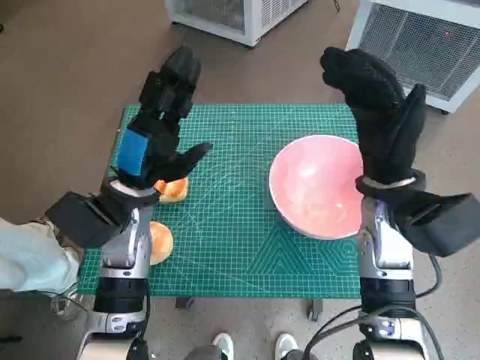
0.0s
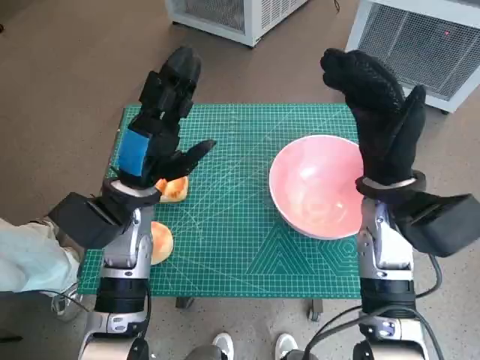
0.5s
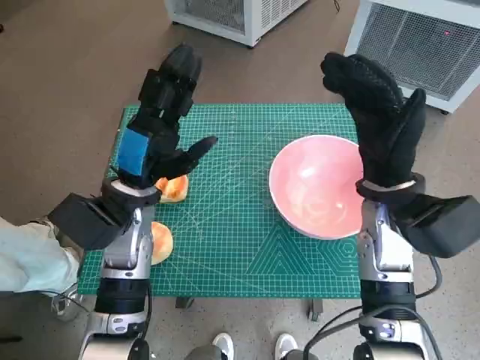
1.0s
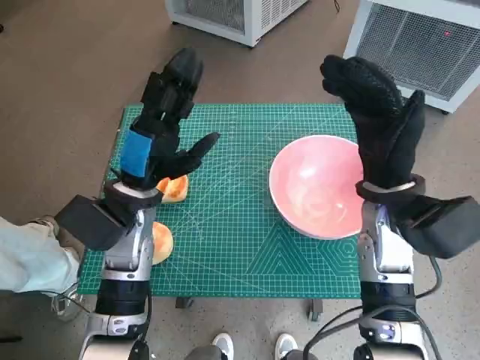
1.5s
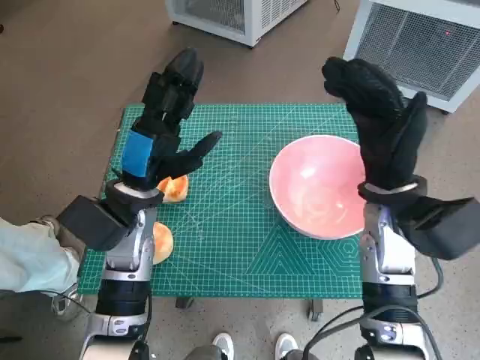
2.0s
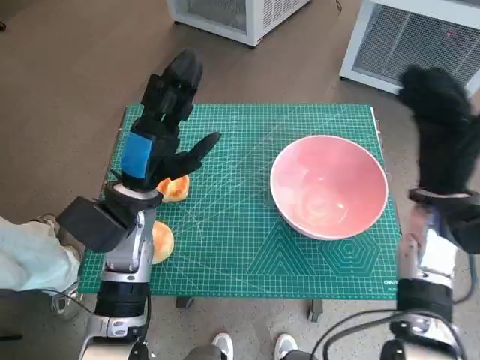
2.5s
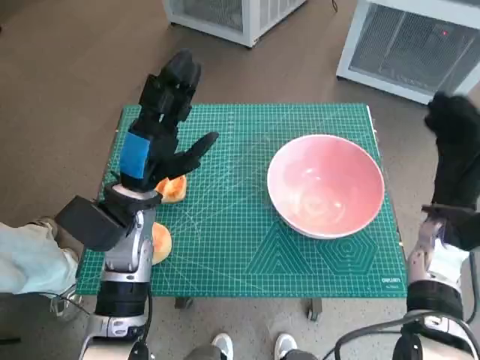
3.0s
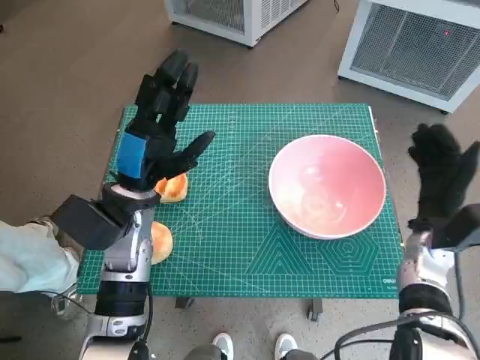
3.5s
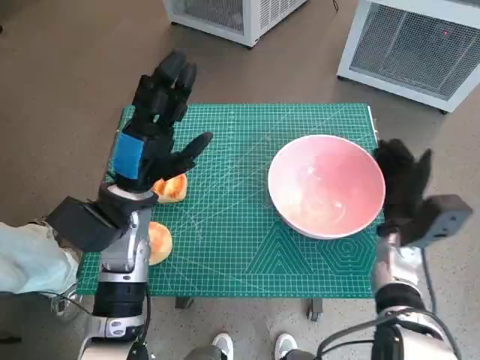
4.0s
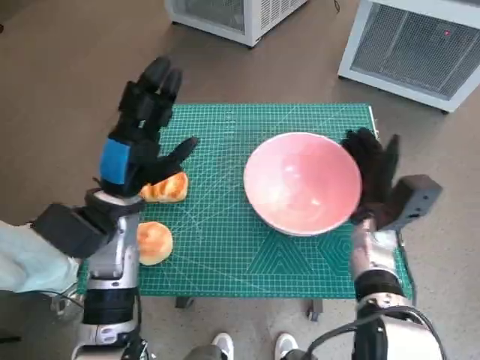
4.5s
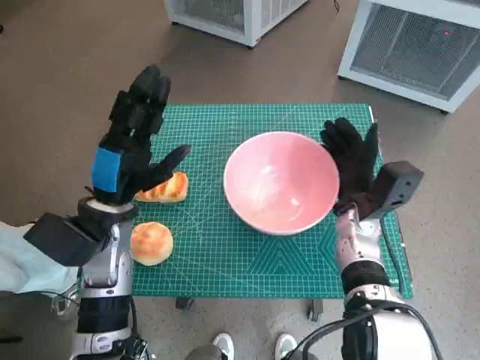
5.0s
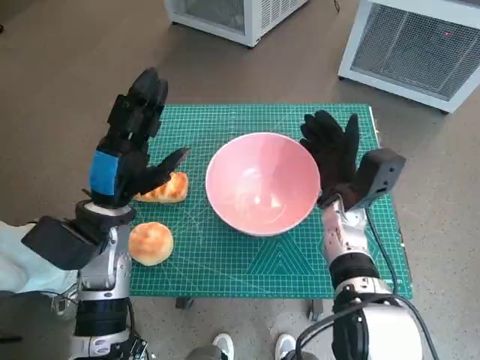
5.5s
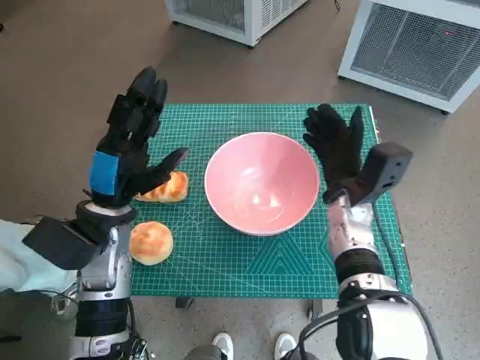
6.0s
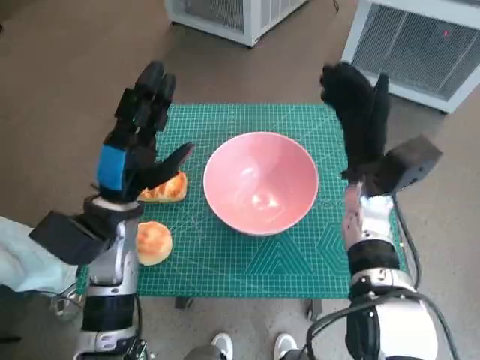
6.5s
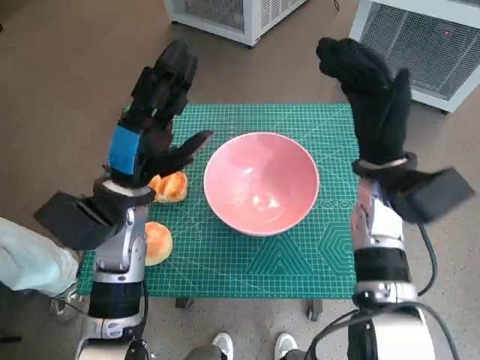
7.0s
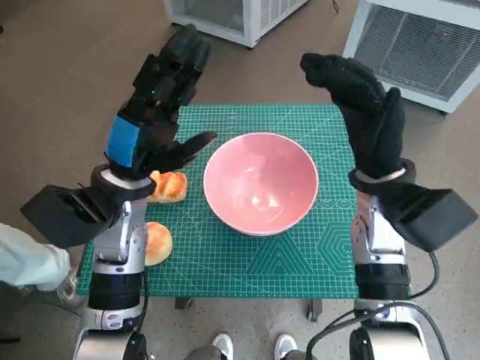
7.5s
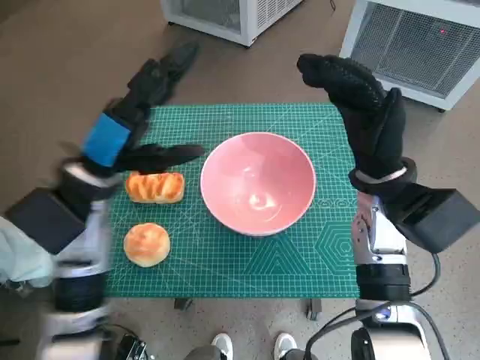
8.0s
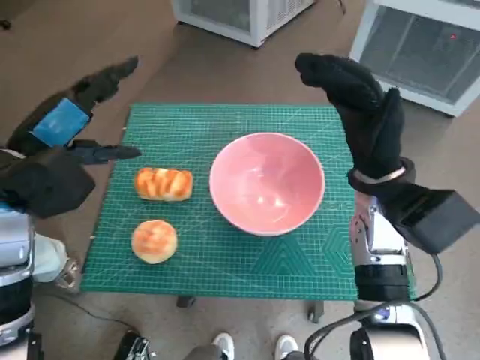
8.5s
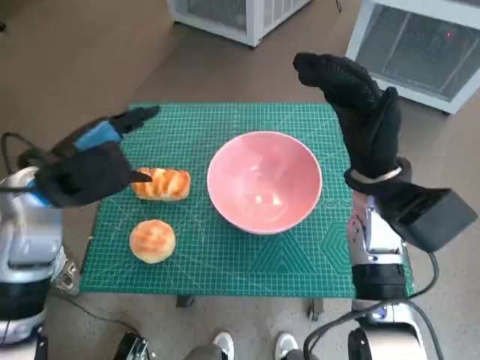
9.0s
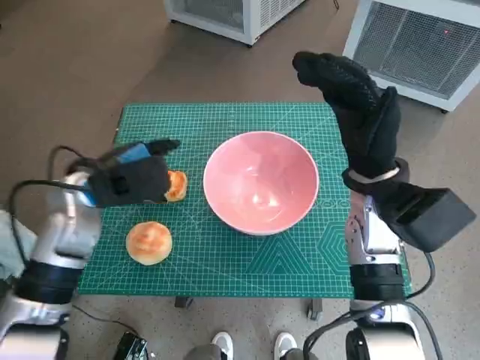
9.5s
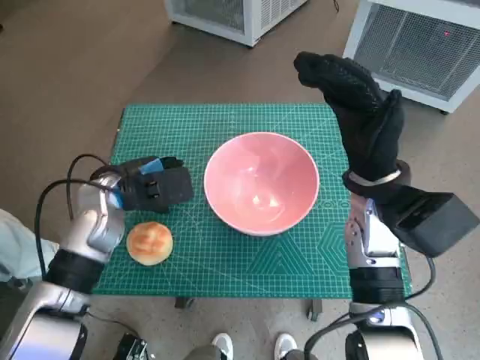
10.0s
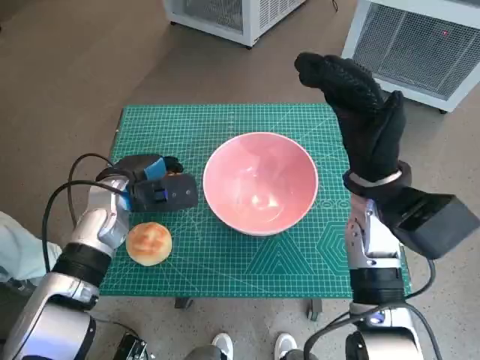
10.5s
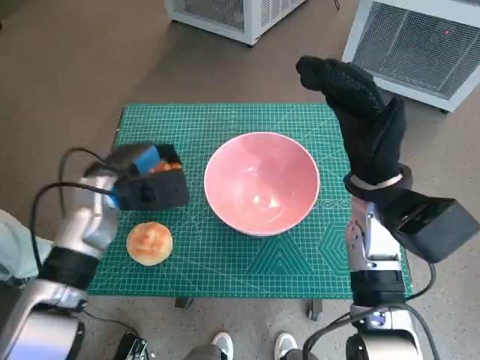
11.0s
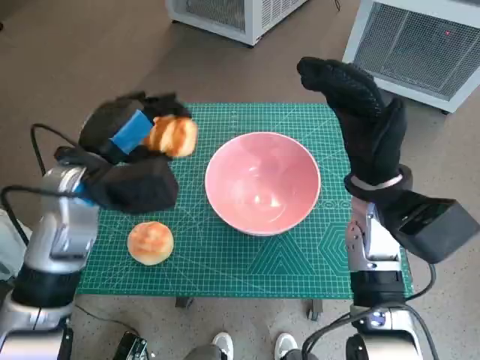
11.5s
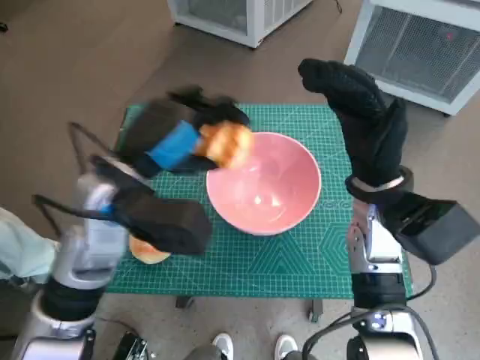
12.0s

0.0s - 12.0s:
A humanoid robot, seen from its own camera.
Task of the whole recording: Push the bowl into the center of the table and put the bread into the bowl.
Step, 0.0s - 5.5s: Move the pink bowl to the center of table with right hand.
Step, 6.0s - 10.5s: Grasp the long bread with left hand.
2.0s - 4.0s: The right hand heads downward and to the right, covering some 15 cm.
4.0s - 6.0s: The right hand travels to the left by some 10 cm.
6.0s - 8.0s: The right hand moves upward, about 10 cm, while the left hand heads upward, covering roughly 5 cm.
8.0s - 10.0s: The left hand shifts roughly 5 cm downward.
10.0s - 12.0s: The left hand shifts roughly 10 cm upward and to the right.

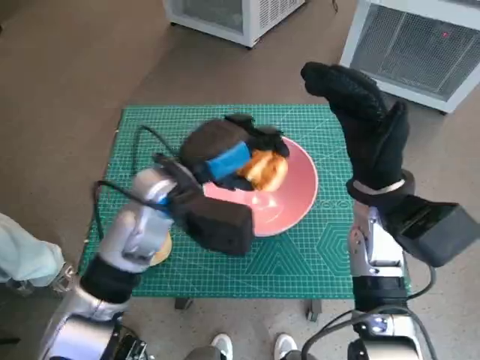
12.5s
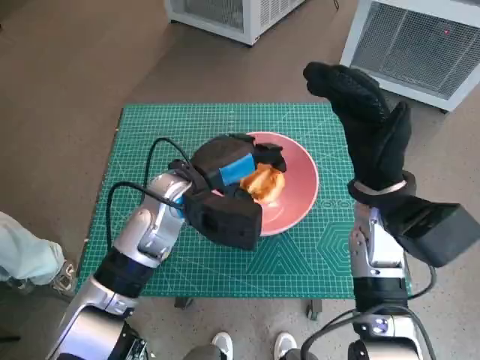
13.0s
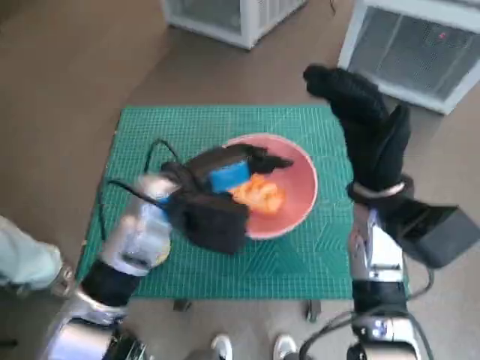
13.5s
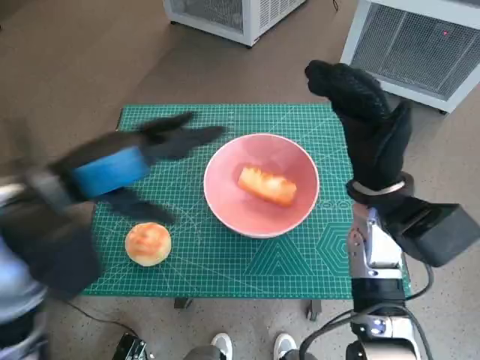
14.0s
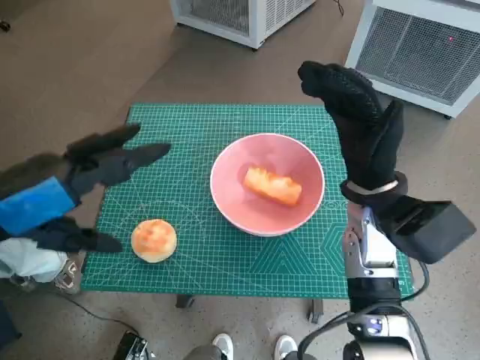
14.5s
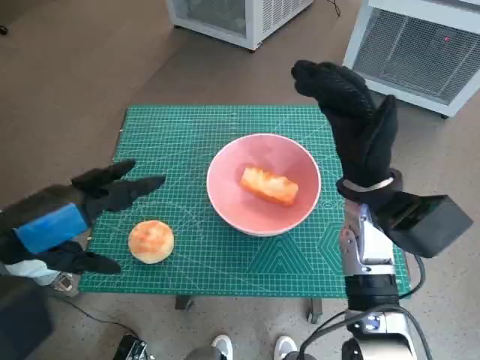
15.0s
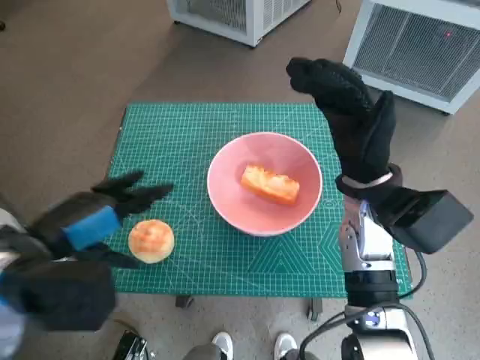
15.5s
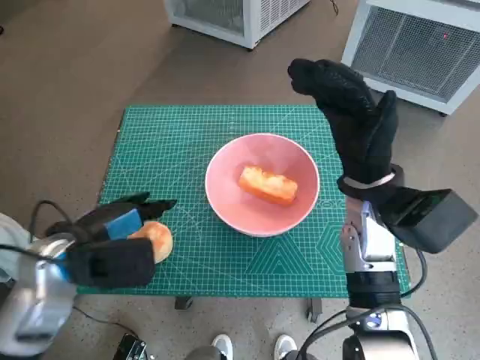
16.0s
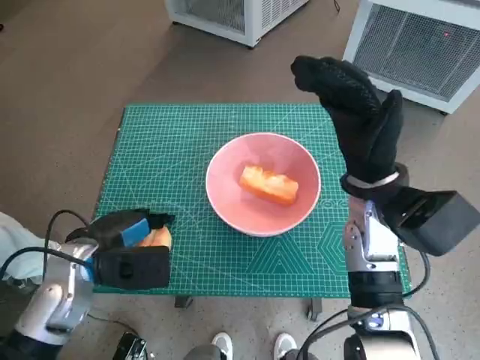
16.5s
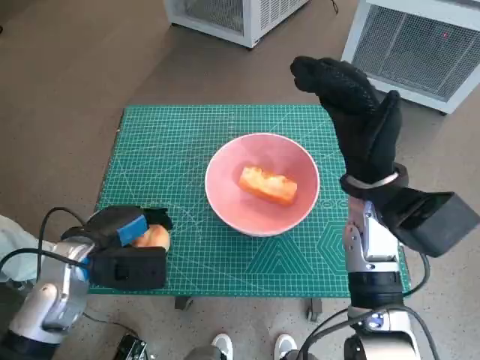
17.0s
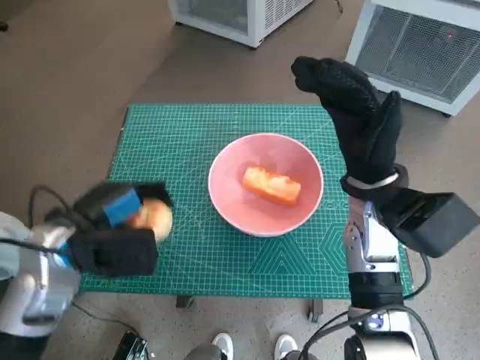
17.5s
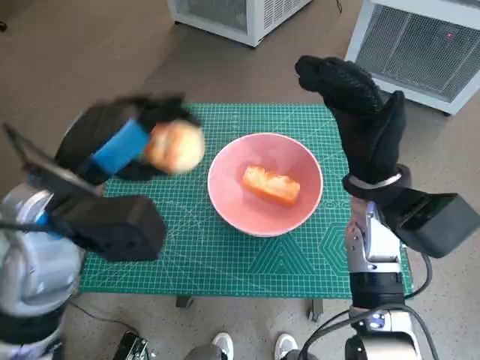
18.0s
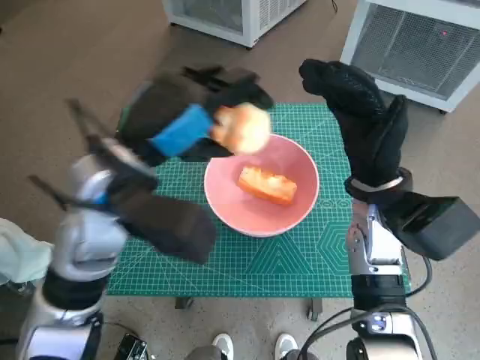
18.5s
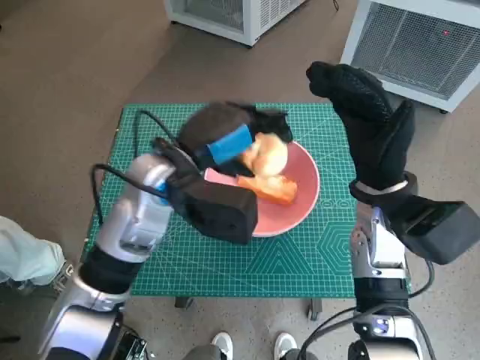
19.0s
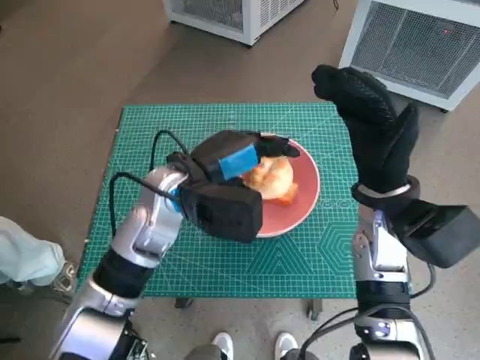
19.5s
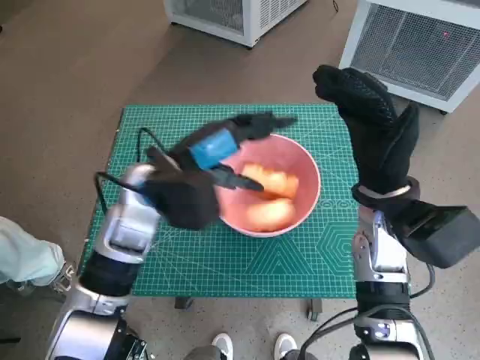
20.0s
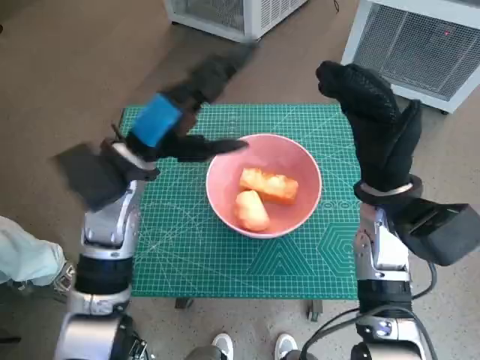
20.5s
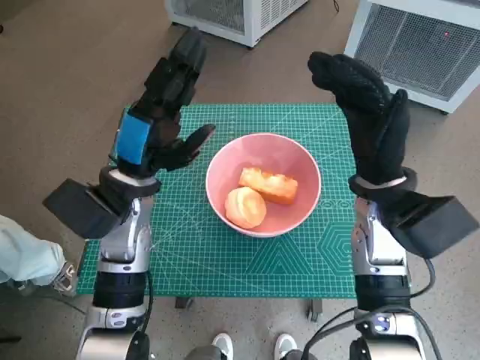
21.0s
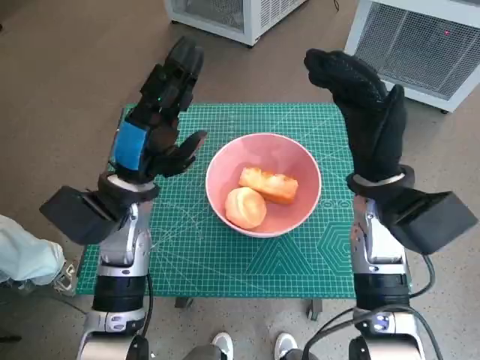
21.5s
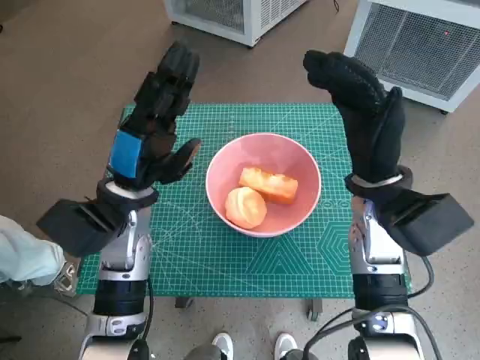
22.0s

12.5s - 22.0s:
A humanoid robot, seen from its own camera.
Task of the whole recording: Push the bowl into the center of the table and put the bread into the bowl.
Step, 13.5s - 16.5s: Grasp the round bread with left hand.
Step, 17.0s - 19.5s: Place the round bread in pink bowl with left hand.
12.5s - 14.5s: The left hand is displaced to the left, backward and upward by some 20 cm.
14.5s - 16.5s: The left hand travels downward by roughly 15 cm.
16.5s - 18.0s: The left hand goes about 15 cm upward.
18.0s - 20.0s: The left hand is displaced to the right, forward and downward by about 10 cm.
20.0s - 22.0s: The left hand moves some 5 cm.

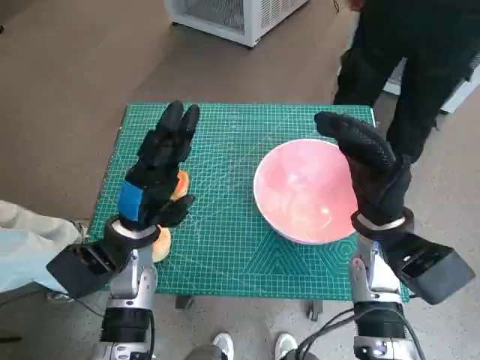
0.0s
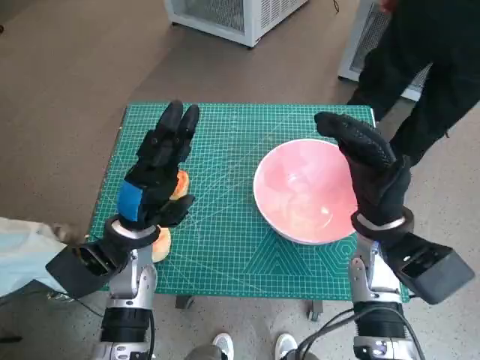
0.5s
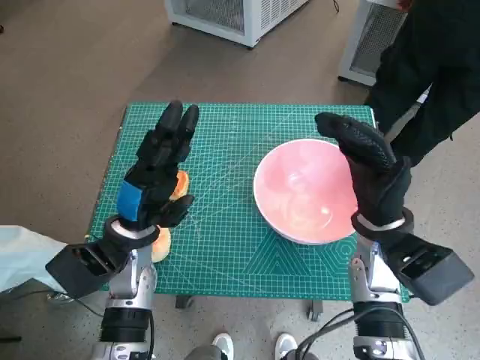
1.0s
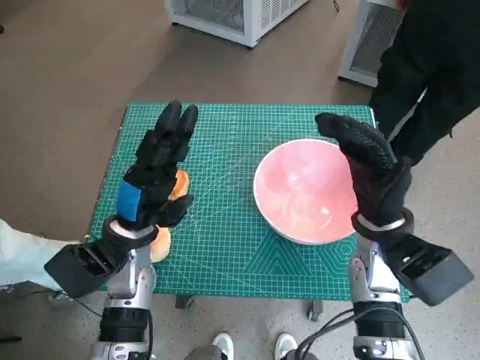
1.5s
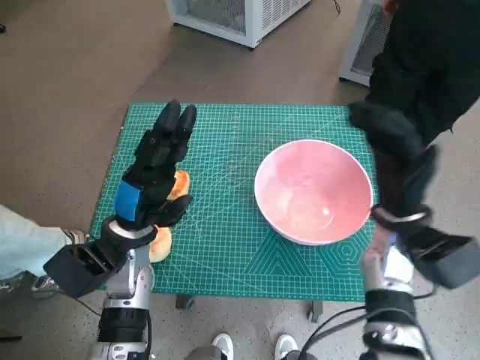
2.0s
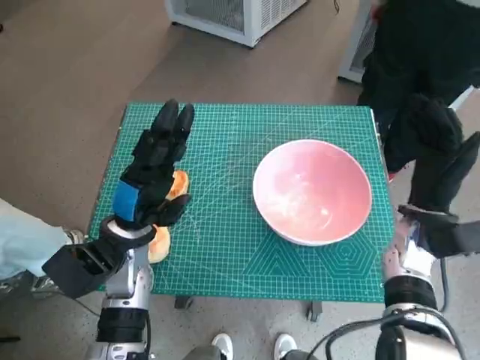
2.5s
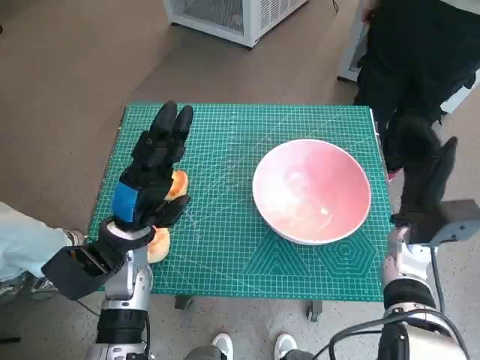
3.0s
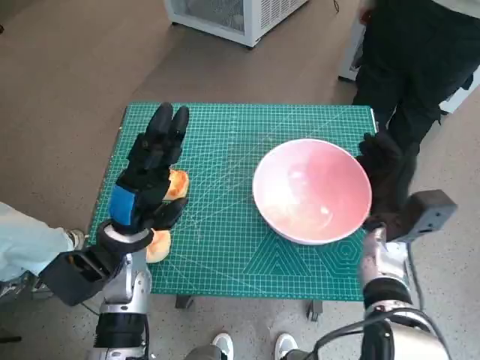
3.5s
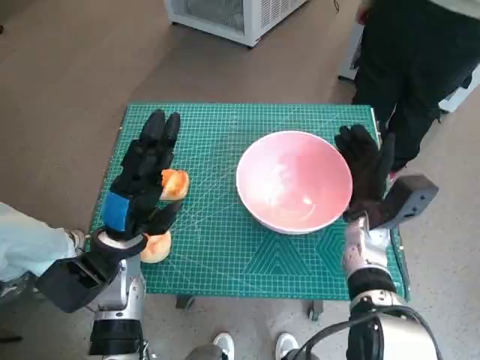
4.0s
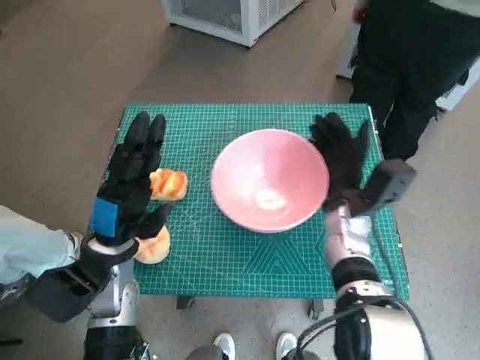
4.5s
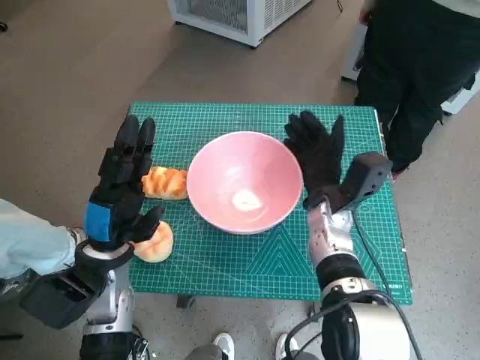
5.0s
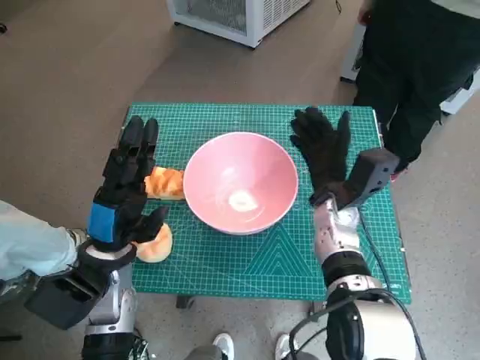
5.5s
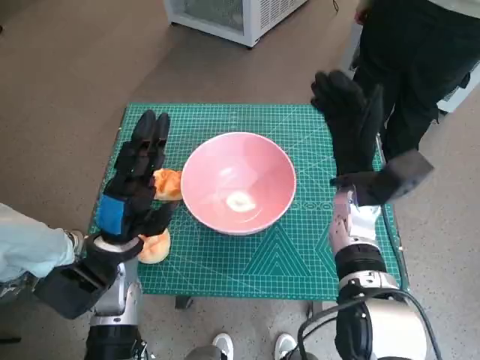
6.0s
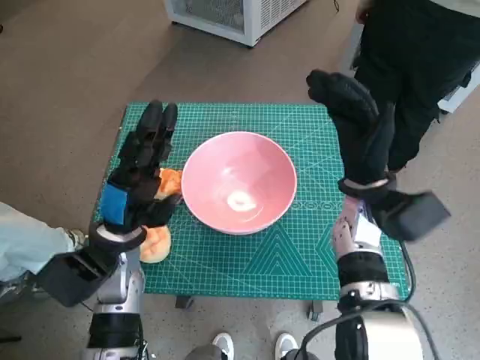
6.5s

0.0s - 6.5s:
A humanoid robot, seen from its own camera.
Task of the whole recording: Push the bowl into the center of the table and put the bread into the bowl.
Step, 0.0s - 5.0s: Move the pink bowl to the center of table with right hand.
2.0s - 4.5s: The right hand changes place by roughly 10 cm.
4.5s - 6.5s: The right hand travels upward by some 5 cm.
